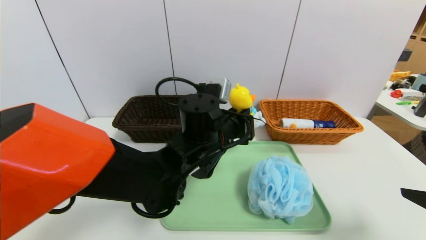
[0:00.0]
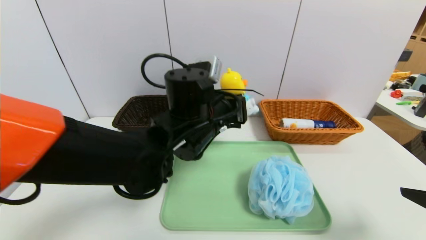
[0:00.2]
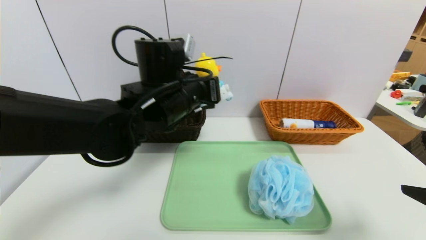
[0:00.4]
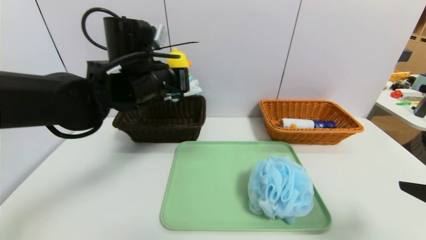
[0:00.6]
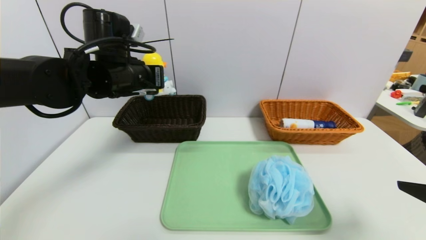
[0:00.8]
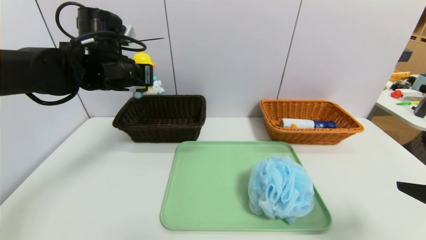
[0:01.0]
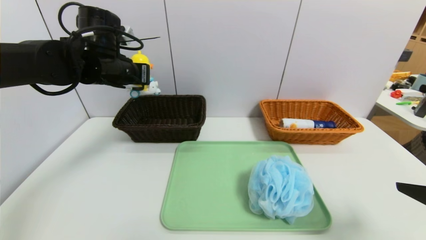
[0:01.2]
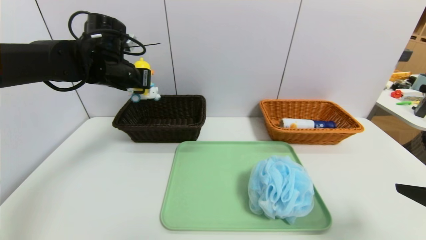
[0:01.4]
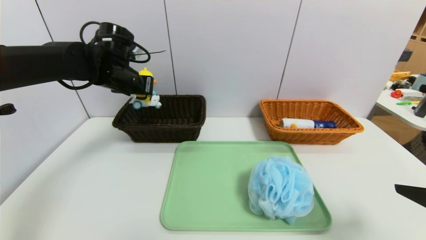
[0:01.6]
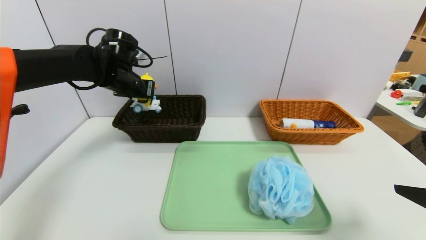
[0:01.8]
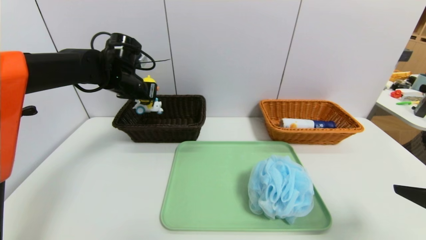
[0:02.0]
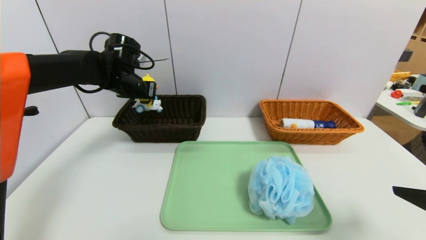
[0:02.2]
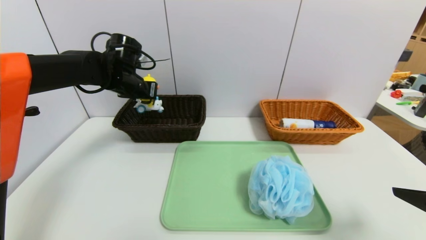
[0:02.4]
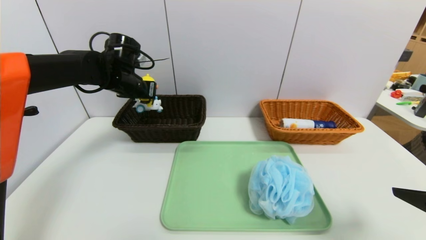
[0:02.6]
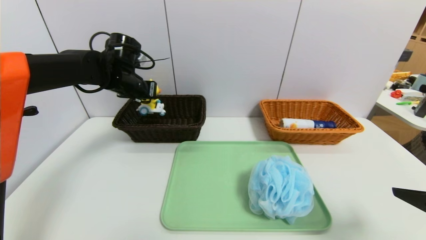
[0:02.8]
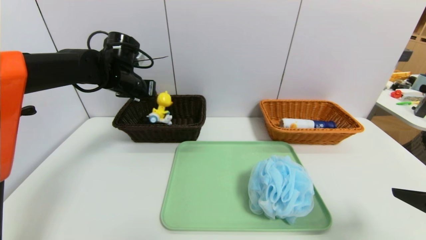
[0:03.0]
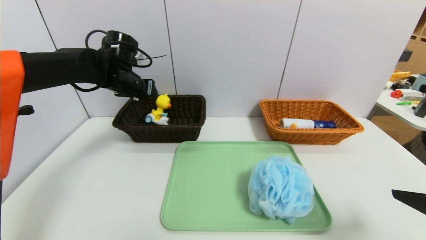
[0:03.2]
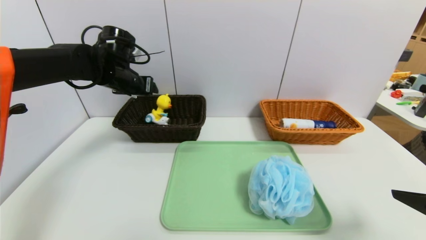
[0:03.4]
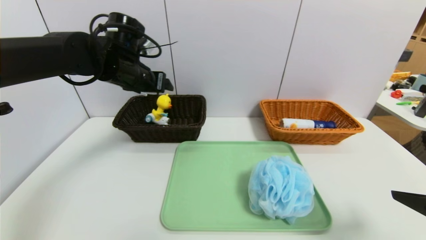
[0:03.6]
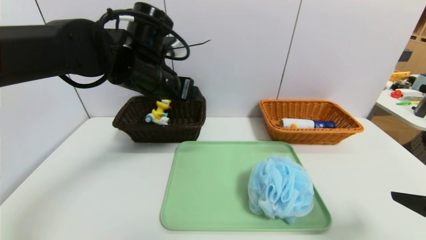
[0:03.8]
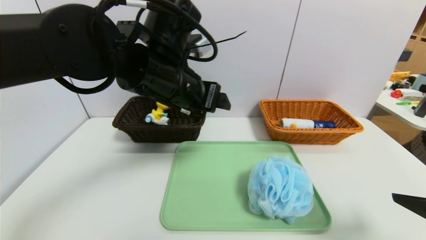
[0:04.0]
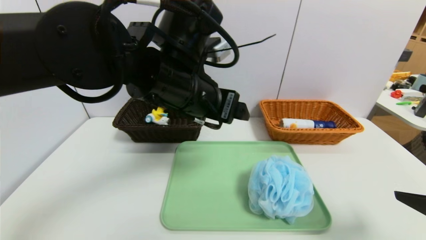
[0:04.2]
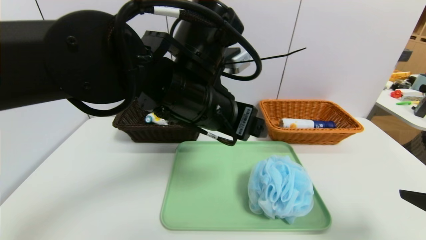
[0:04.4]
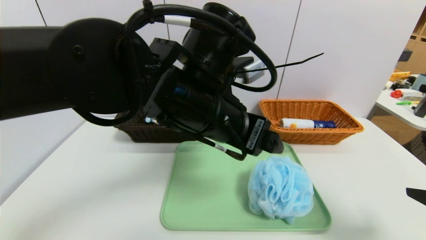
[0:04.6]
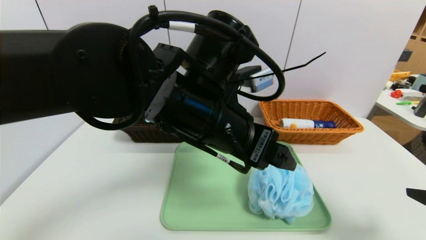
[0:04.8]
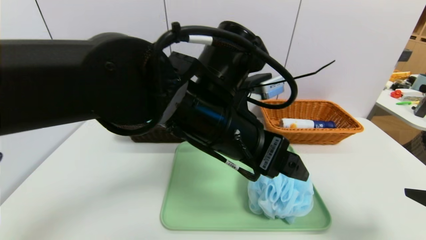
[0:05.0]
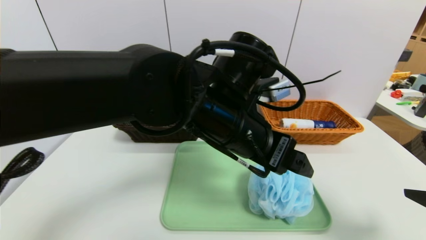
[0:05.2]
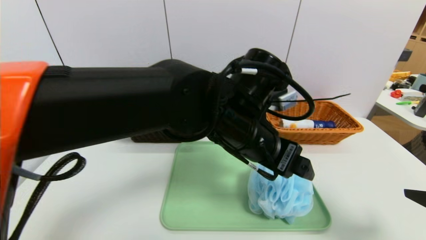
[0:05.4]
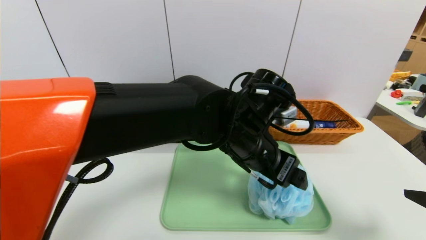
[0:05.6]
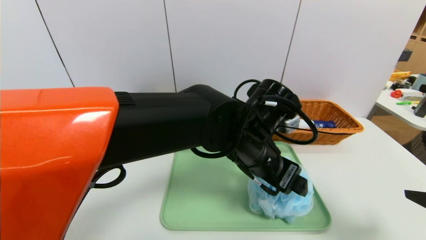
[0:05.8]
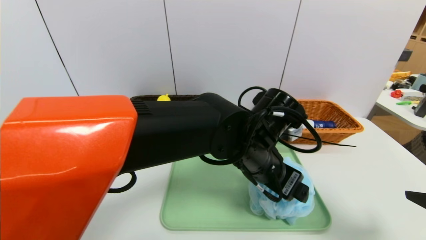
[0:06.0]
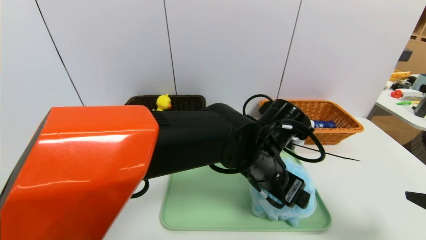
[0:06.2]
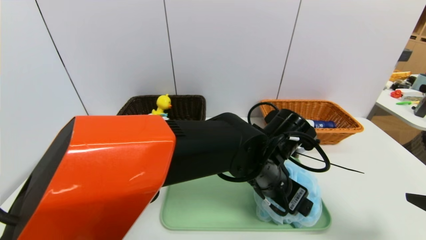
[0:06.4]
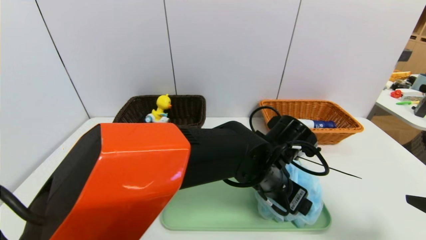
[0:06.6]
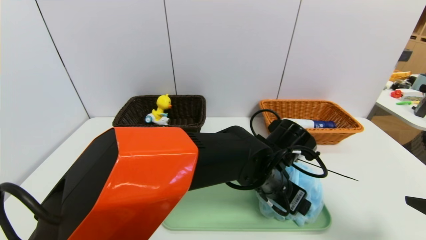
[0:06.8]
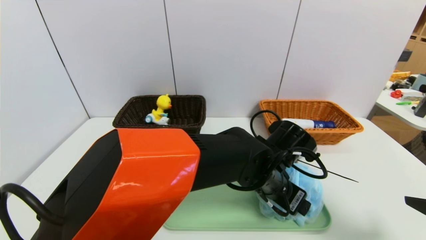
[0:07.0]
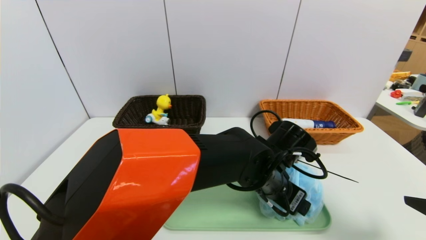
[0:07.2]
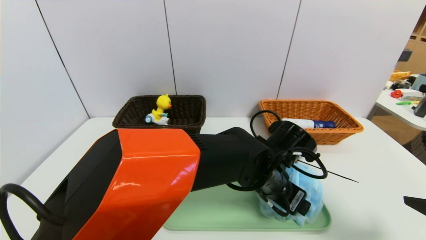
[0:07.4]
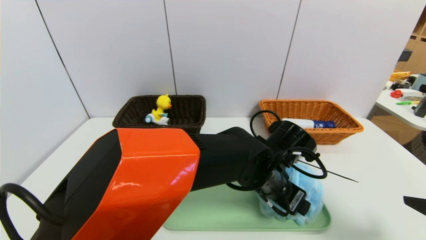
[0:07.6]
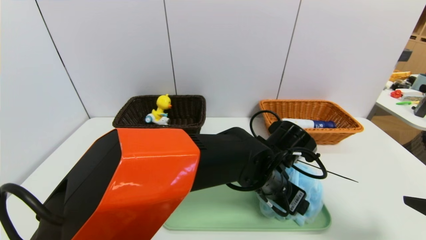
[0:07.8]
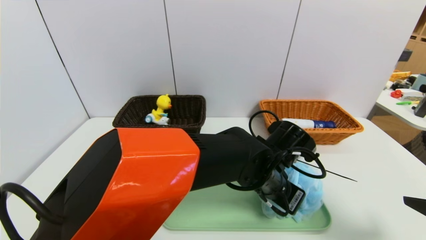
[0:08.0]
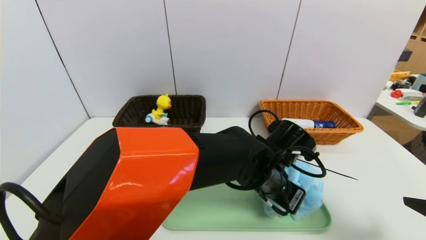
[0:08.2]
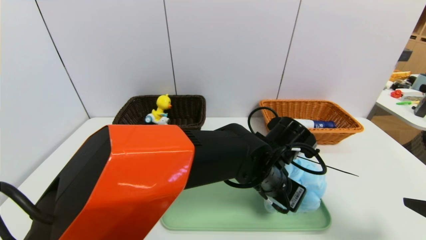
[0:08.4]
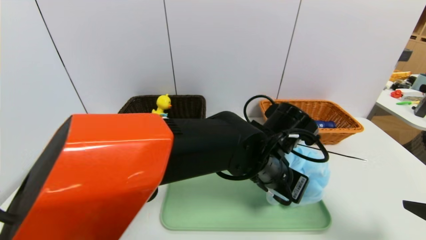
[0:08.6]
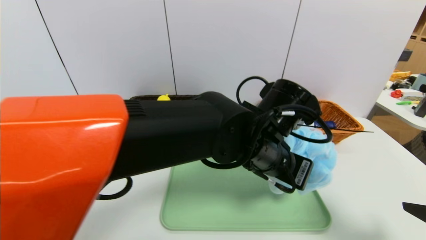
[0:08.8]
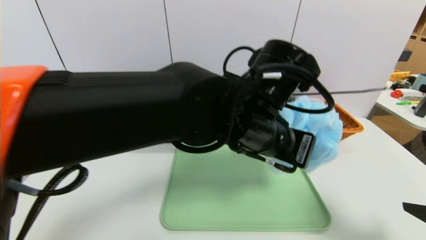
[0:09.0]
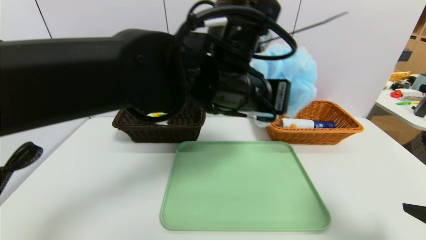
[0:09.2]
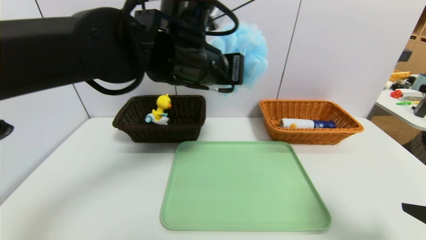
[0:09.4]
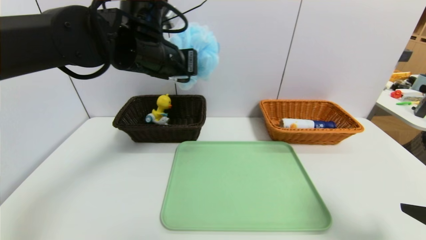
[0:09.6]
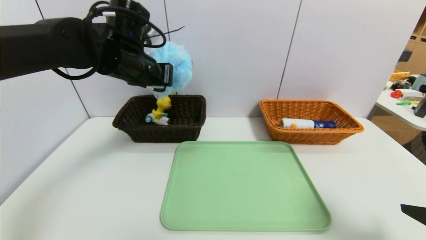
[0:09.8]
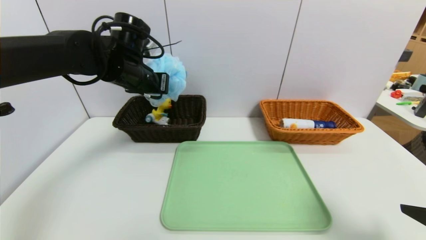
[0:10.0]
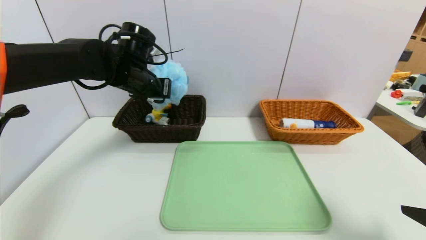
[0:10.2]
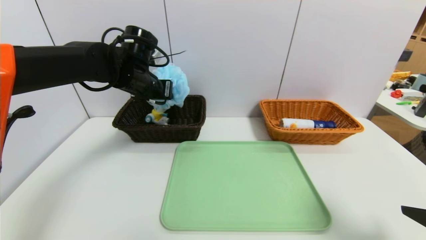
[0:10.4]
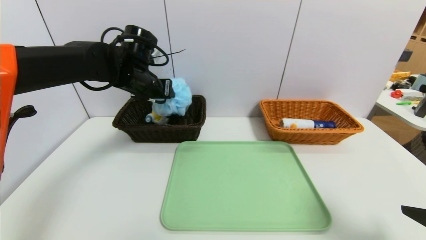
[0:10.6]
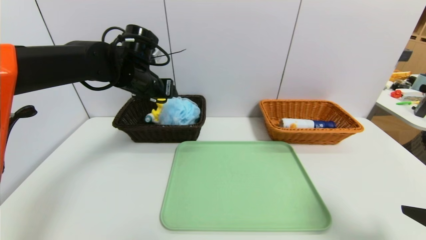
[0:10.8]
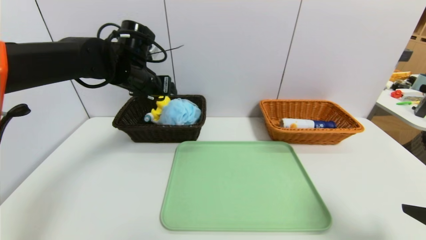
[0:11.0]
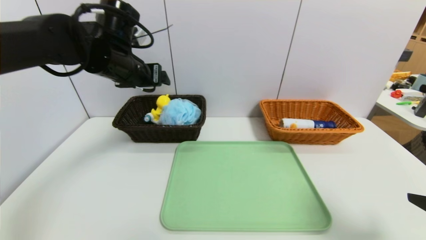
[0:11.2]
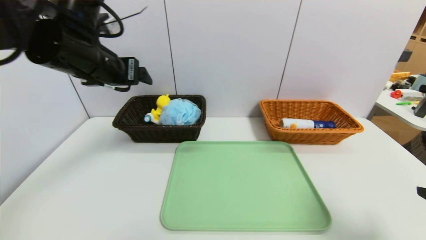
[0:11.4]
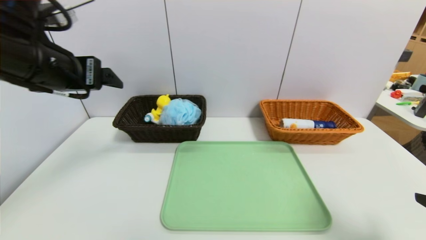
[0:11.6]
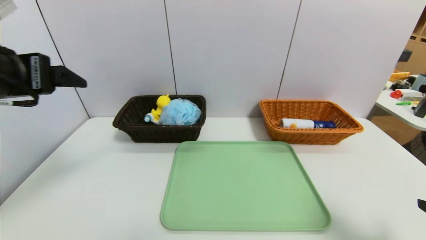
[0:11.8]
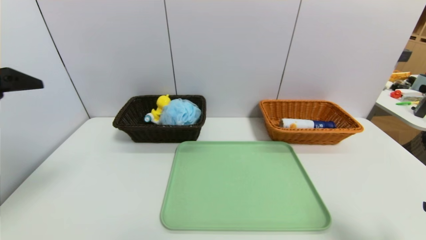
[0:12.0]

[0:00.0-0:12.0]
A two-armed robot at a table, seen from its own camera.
Task of the whole recording: place the food in the right basket with the right gripper, and place the non food items in the left basket with the left gripper.
Step, 0:00.0 to 0:03.0: Grasp the yellow duck and put it in the left basket.
Step, 0:03.2 to 0:10.8: Grasp the shower sphere and put it in the left basket.
0:00.0 to 0:01.6: The left gripper shifts about 25 cm to the left and forward.
0:01.6 to 0:03.0: The left gripper opens.
0:03.0 to 0:04.4: The left gripper travels backward and to the right by roughly 25 cm, and opens up.
0:04.4 to 0:06.0: The left gripper goes approximately 15 cm downward and to the right.
0:06.0 to 0:07.6: The left gripper shifts some 5 cm downward.
0:07.6 to 0:09.0: The left gripper heads upward and to the left, covering roughly 15 cm, and closes up.
0:09.0 to 0:10.4: The left gripper travels to the left and forward by some 25 cm, and opens.
0:10.4 to 0:12.0: The left gripper shifts approximately 30 cm backward and to the left, and opens.

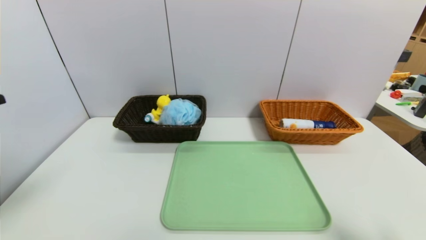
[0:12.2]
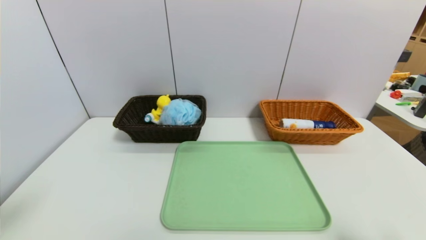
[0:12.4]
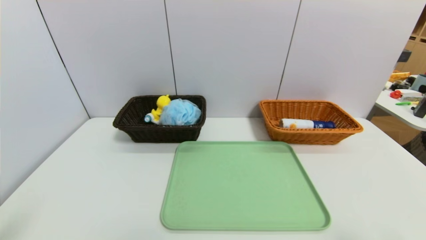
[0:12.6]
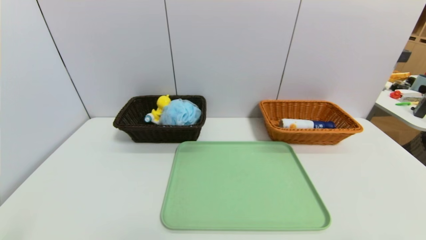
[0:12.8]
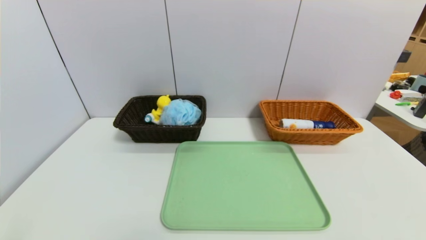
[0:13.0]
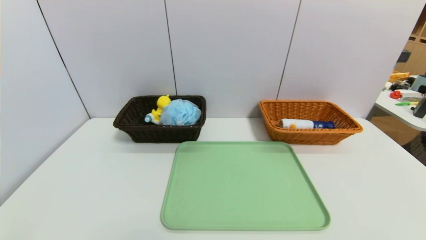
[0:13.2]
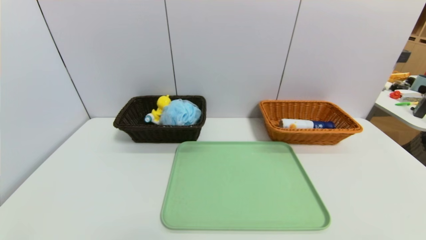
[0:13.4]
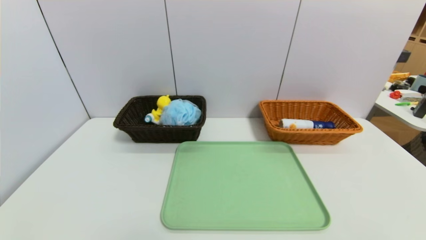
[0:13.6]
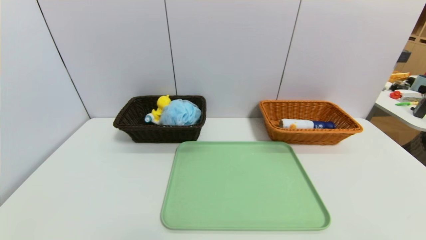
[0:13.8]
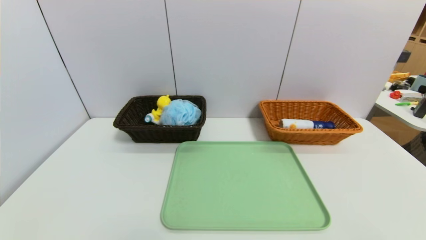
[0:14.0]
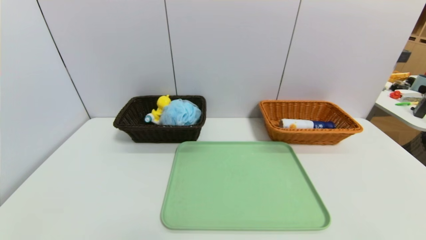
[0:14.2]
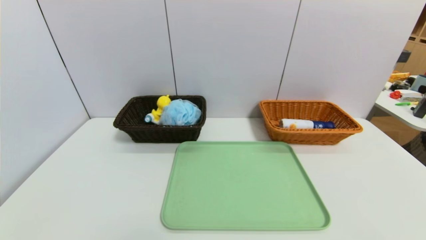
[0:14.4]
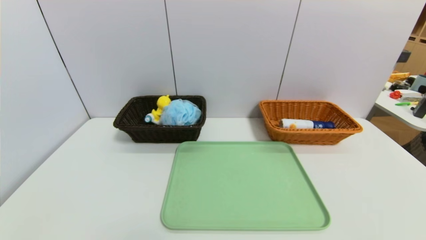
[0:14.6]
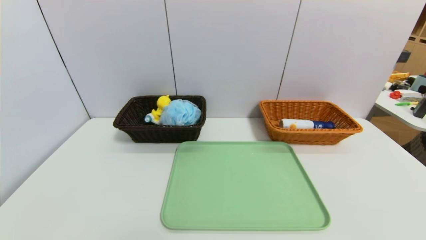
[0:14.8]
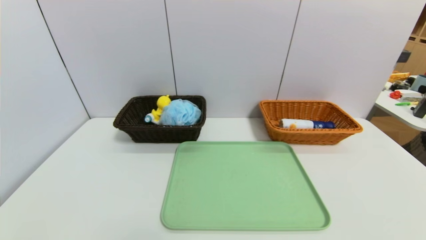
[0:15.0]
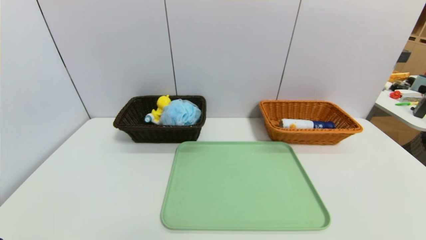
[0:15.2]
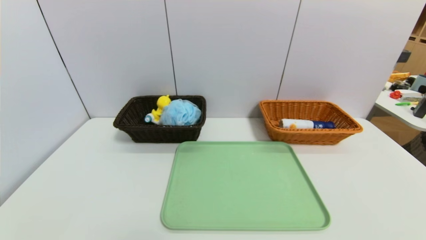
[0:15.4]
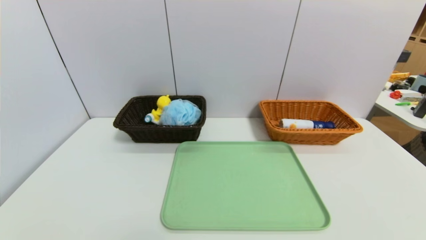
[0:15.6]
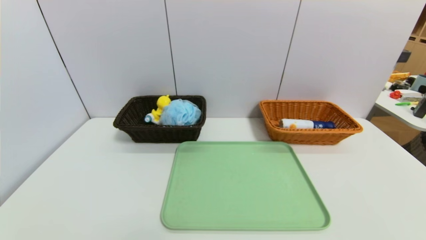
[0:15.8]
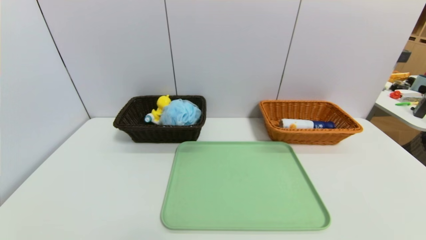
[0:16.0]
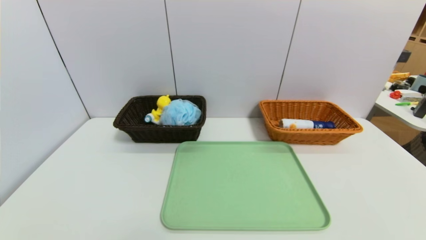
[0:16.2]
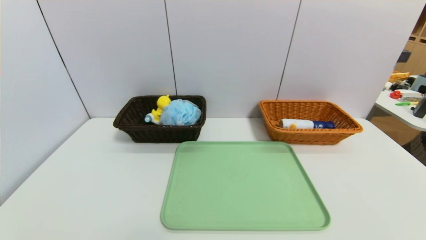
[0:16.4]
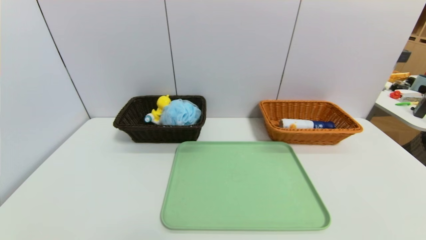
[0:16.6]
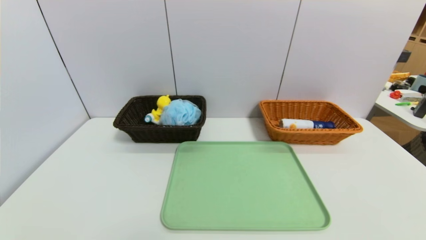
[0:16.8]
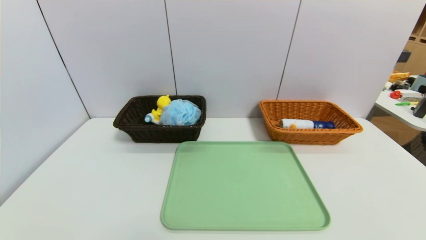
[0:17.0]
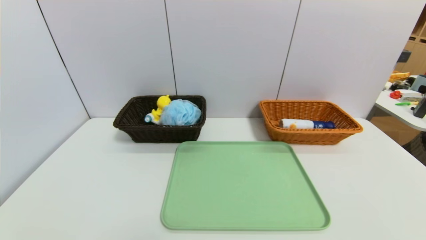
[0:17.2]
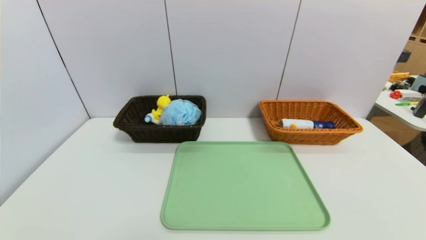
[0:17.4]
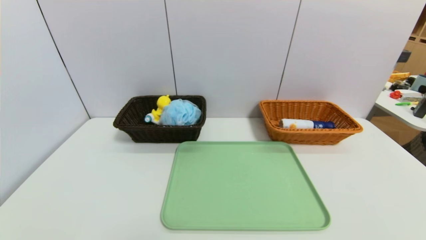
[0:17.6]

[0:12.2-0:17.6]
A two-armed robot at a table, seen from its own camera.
Task of the whole recording: place the food in the right basket with the right gripper, and place the non food items in the left basket with the left gripper.
0:12.2 to 0:13.6: The right gripper goes about 5 cm backward. Meanwhile the left gripper moves downward and backward, some 20 cm.
0:16.2 to 0:17.6: Both grippers stay put.
